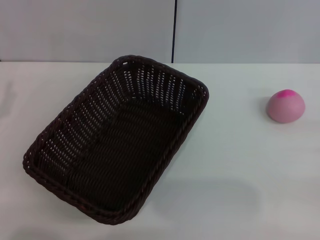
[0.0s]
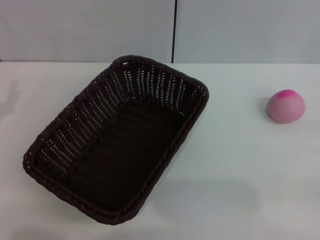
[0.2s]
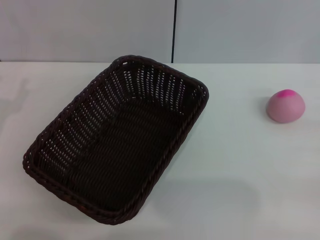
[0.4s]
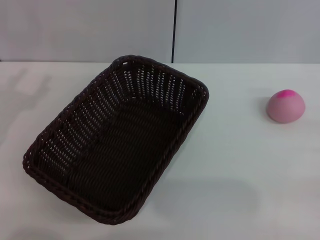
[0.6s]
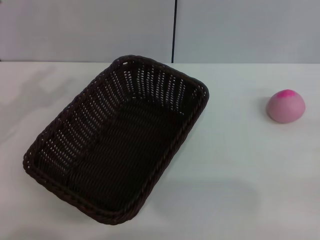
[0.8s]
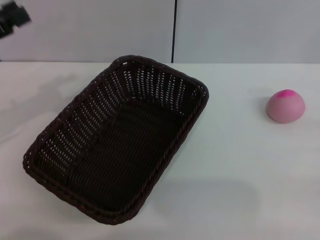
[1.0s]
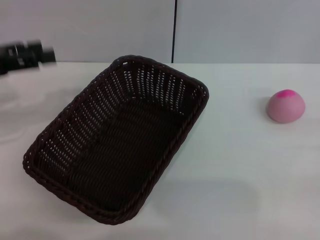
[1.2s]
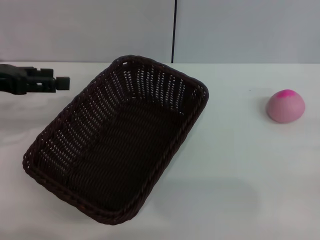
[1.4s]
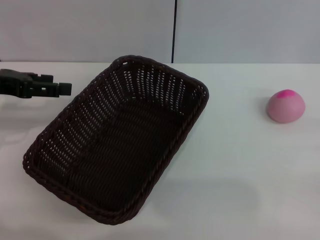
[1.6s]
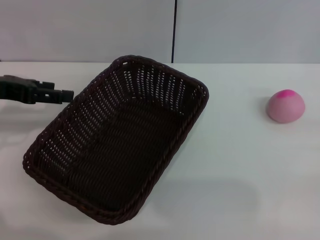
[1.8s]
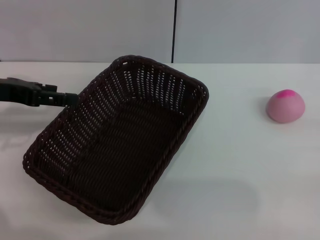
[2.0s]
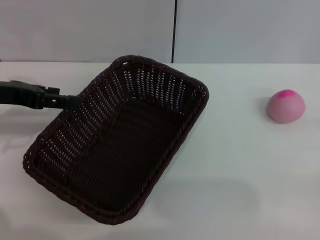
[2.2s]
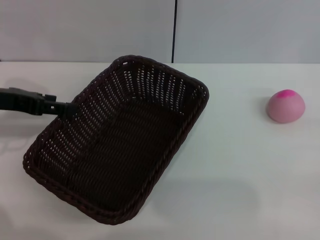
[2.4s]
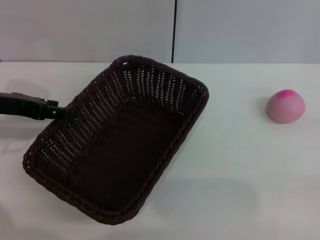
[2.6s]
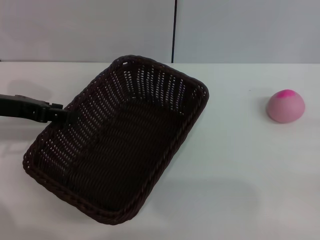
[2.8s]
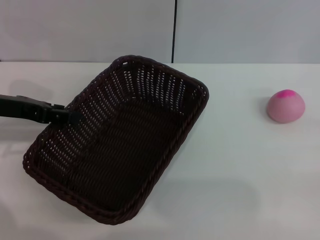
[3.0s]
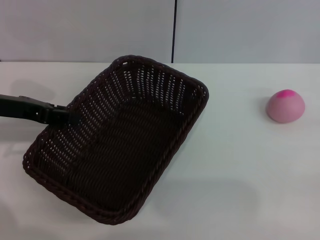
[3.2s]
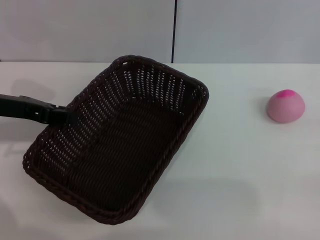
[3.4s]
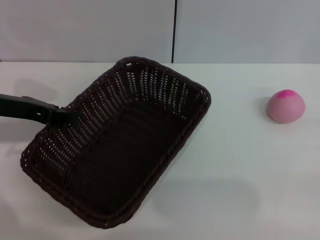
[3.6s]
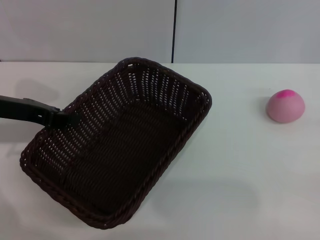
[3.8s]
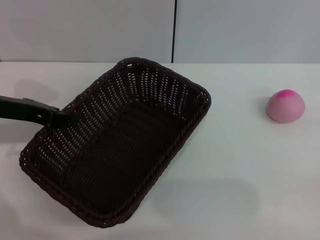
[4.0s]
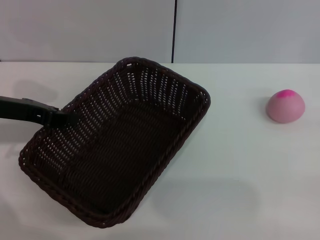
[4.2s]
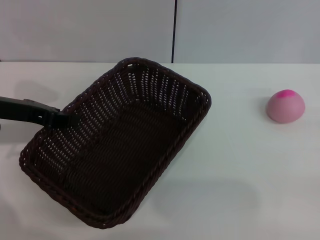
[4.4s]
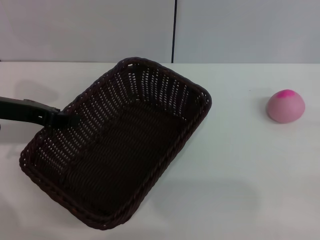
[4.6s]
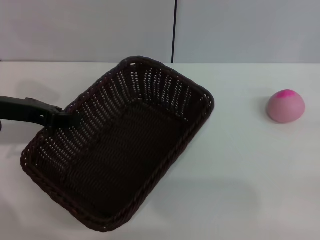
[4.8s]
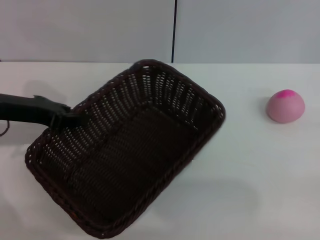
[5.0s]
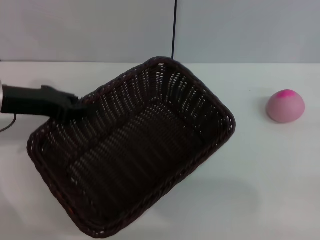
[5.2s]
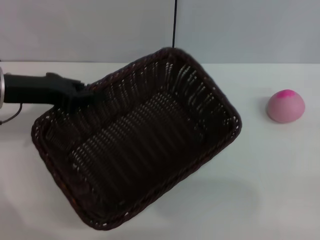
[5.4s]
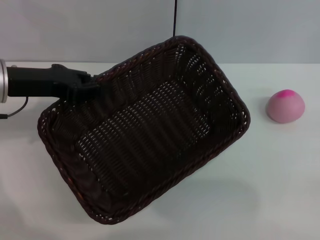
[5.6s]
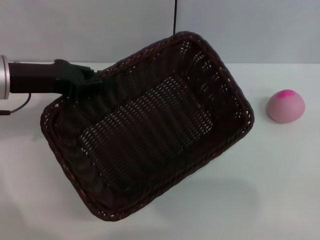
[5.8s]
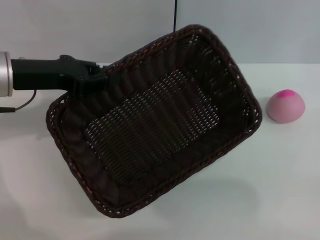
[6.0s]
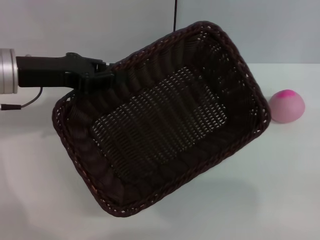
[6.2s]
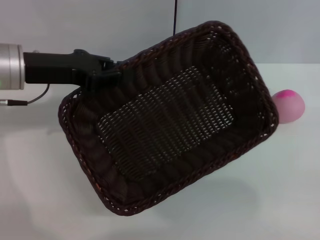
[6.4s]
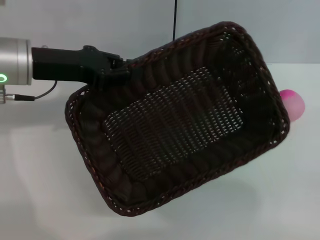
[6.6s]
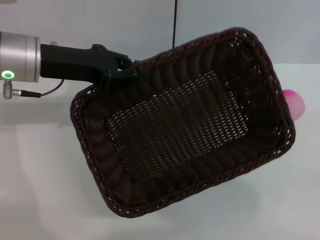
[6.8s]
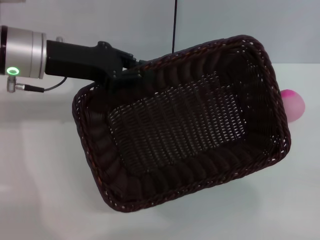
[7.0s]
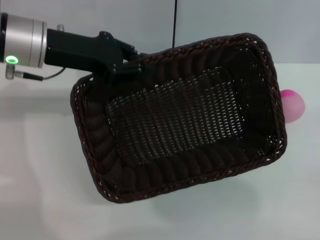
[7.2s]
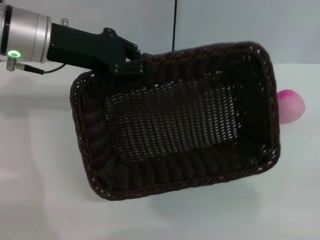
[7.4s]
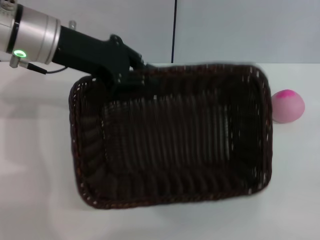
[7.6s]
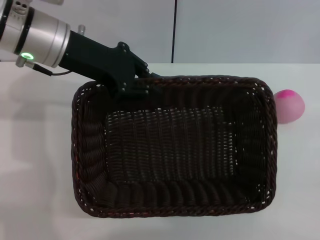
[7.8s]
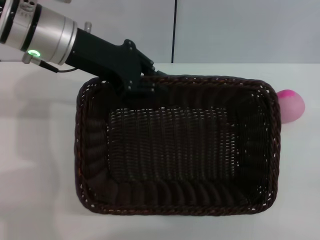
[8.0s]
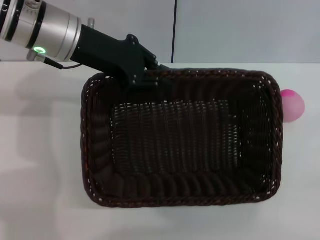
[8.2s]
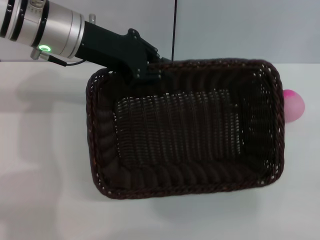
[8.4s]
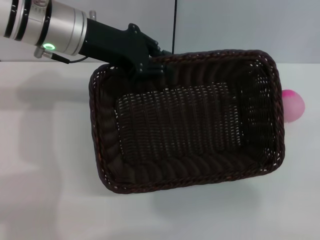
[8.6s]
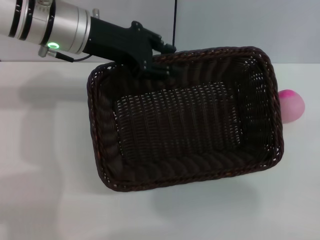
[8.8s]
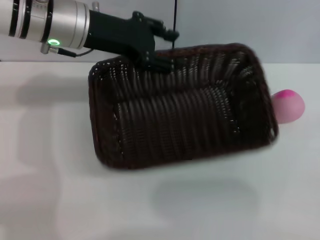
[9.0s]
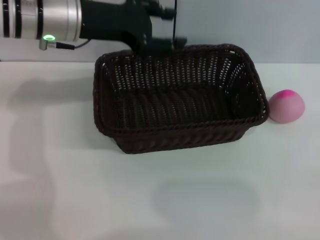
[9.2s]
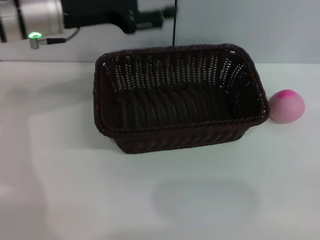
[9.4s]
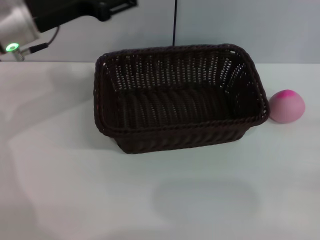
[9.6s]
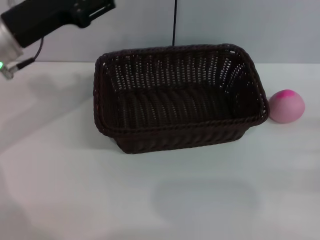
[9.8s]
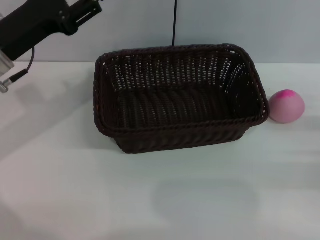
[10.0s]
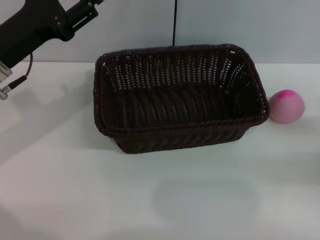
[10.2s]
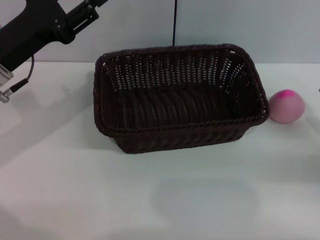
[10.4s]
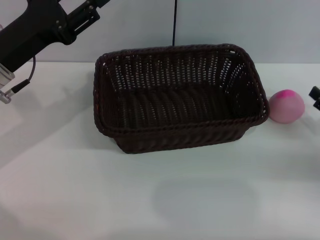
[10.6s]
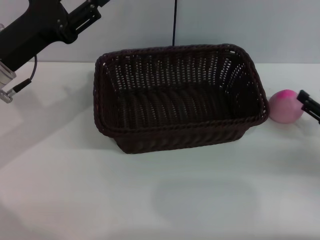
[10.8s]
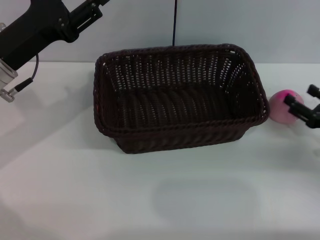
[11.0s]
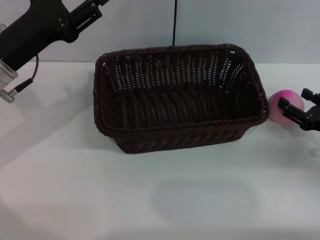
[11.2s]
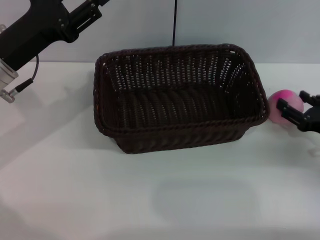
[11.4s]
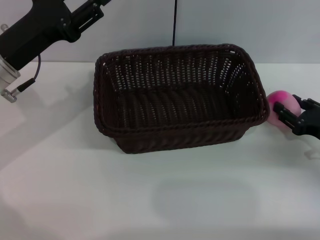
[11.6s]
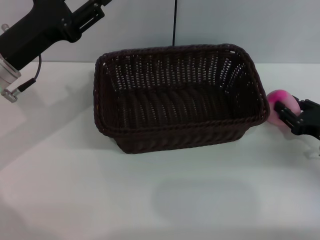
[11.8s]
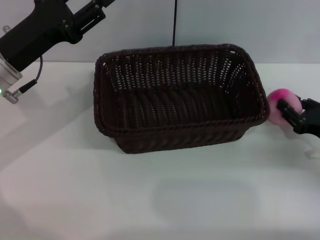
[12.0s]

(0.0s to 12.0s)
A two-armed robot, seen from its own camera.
Step, 0.0s - 5.4s: Pick up the dark basket with the left gripper.
Step, 5.6s - 9.4s: Place the dark basket in the center of view with the right gripper.
0.0s - 1.6s: The left gripper moves upward and forward, roughly 15 cm.
1.6s - 3.0s: There are only small adjustments of the grippers.
3.0s - 4.4s: The left gripper closes its fingers.
6.0s - 7.6s: The left gripper heads to the right, covering roughly 5 cm.
7.6s - 9.0s: The left gripper opens up.
9.0s - 10.4s: The left gripper shifts about 15 cm to the left, backward and downward.
10.4s - 12.0s: The right gripper shifts by about 5 cm, and opens and closes again.

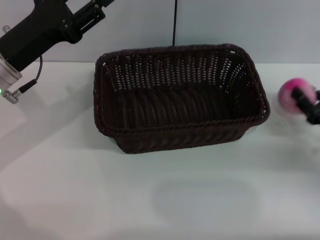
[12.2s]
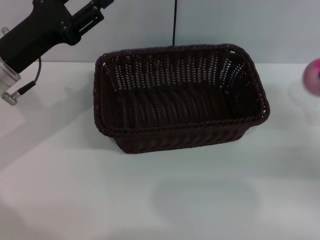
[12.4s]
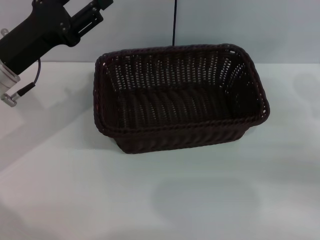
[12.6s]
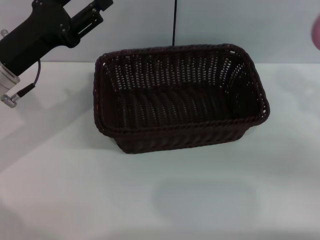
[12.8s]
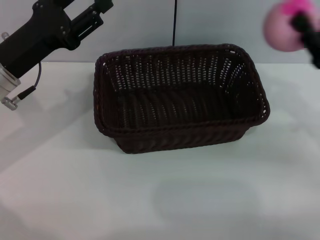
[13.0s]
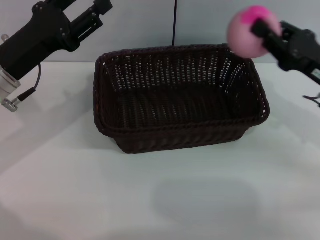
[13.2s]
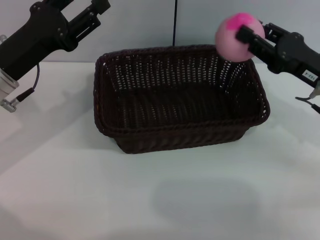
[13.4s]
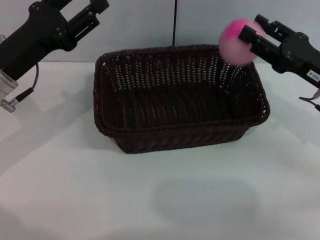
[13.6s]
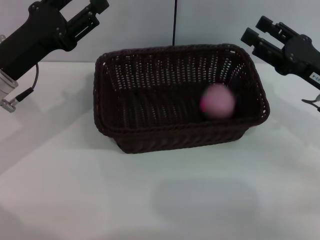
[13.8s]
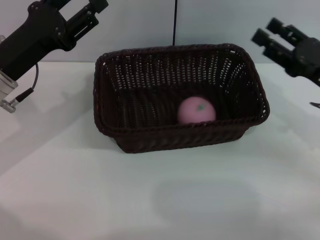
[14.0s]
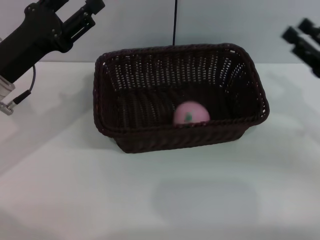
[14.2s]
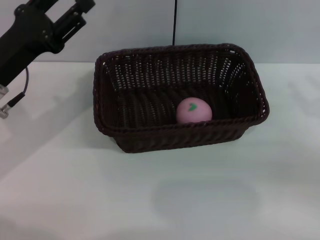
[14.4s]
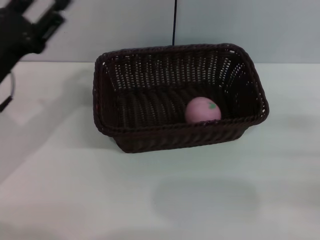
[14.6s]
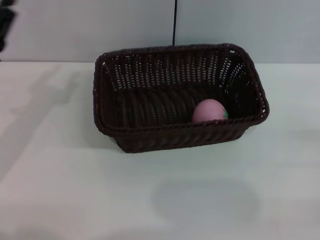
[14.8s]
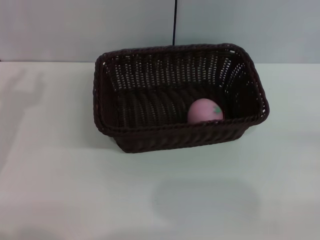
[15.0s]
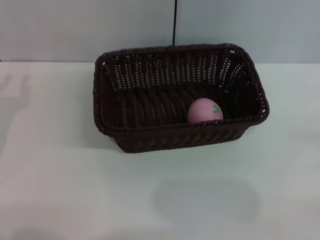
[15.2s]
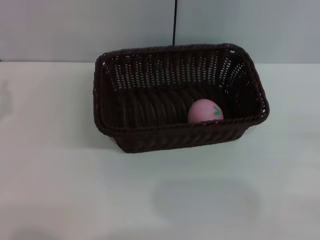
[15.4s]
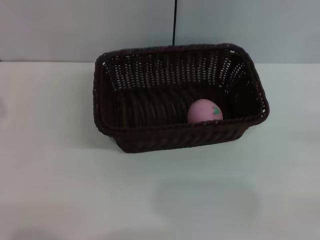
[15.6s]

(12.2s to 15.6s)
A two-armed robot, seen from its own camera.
12.2s - 13.8s: The right gripper is displaced upward and to the left by about 10 cm, and opens its fingers.
13.8s - 15.6s: The right gripper heads to the right, backward and downward, covering roughly 20 cm. Meanwhile the left gripper goes approximately 15 cm to the left, backward and downward, and closes.

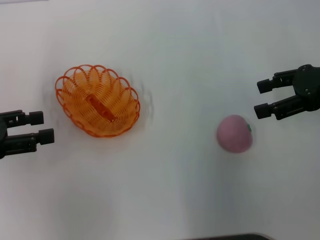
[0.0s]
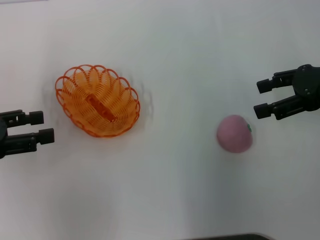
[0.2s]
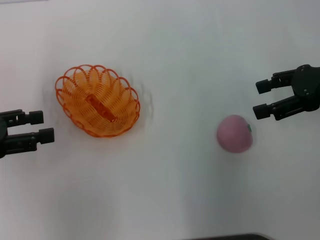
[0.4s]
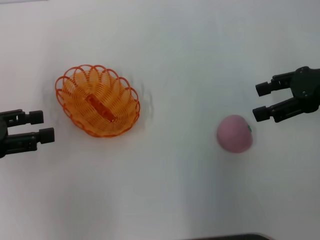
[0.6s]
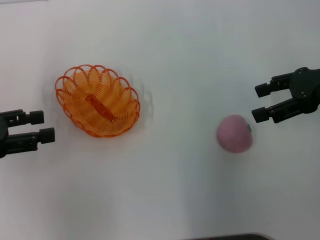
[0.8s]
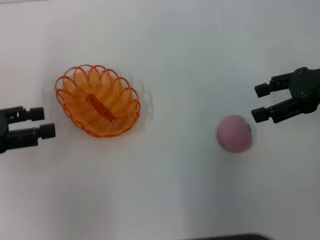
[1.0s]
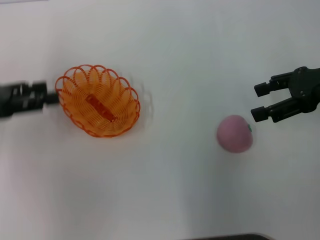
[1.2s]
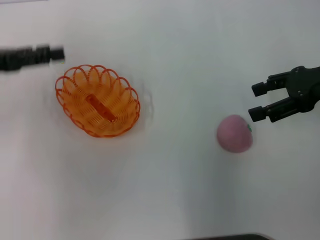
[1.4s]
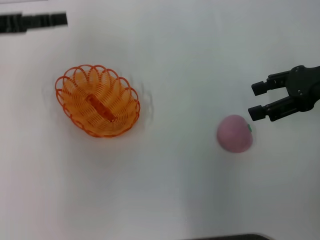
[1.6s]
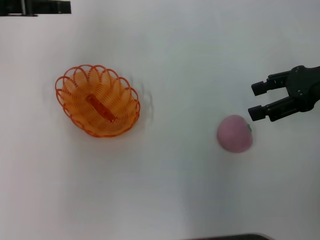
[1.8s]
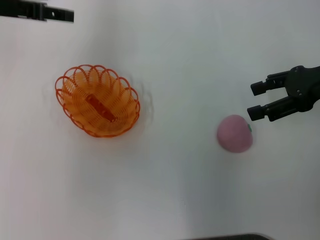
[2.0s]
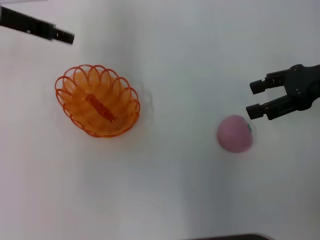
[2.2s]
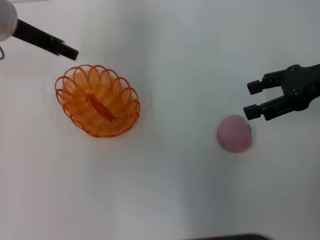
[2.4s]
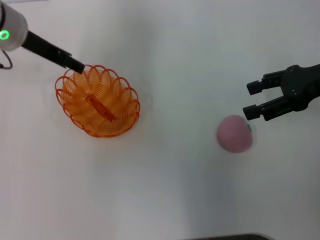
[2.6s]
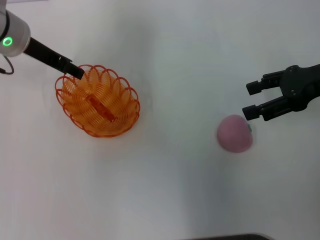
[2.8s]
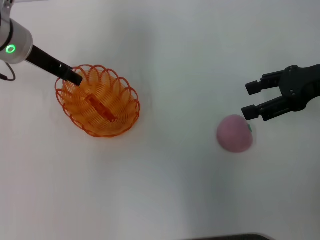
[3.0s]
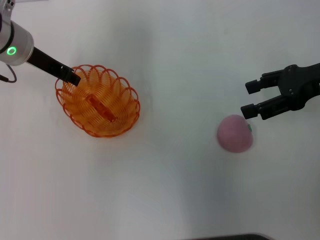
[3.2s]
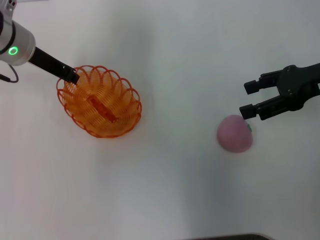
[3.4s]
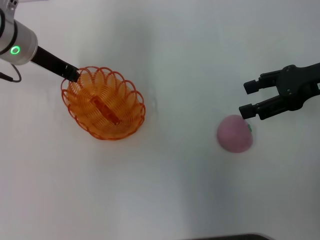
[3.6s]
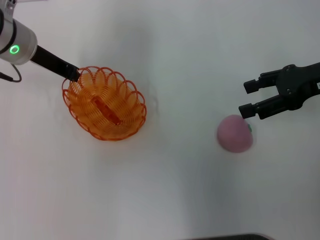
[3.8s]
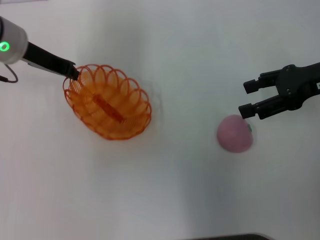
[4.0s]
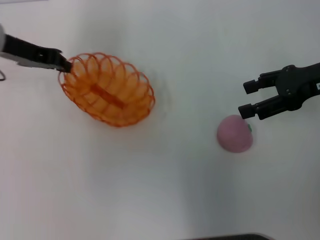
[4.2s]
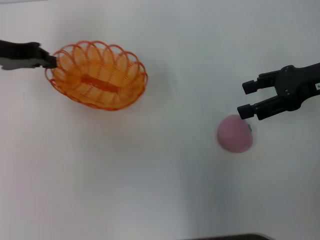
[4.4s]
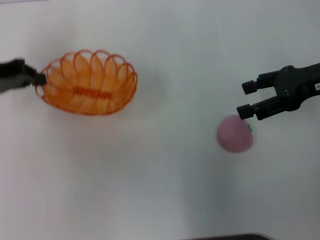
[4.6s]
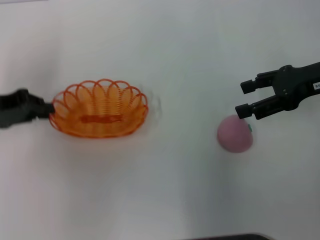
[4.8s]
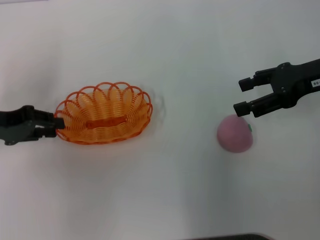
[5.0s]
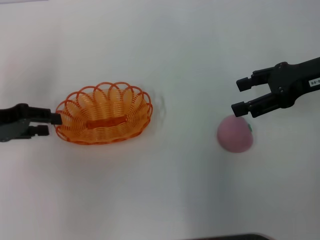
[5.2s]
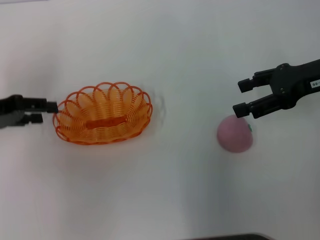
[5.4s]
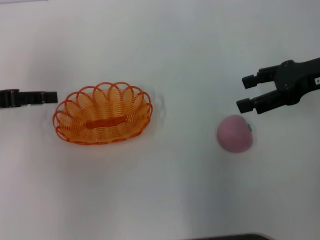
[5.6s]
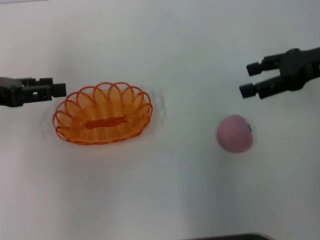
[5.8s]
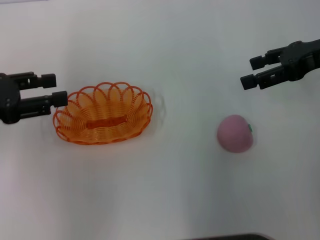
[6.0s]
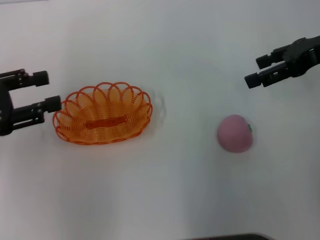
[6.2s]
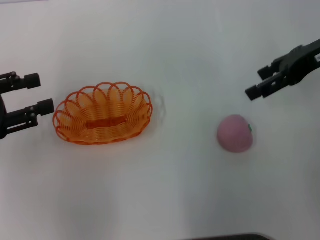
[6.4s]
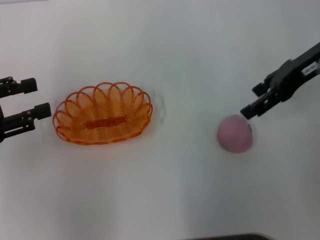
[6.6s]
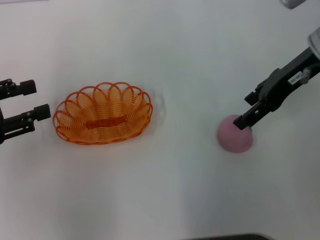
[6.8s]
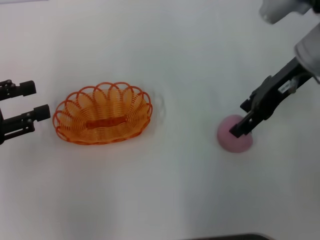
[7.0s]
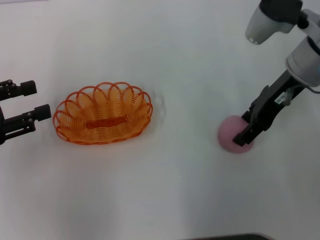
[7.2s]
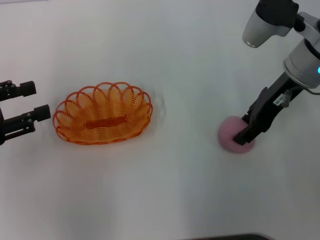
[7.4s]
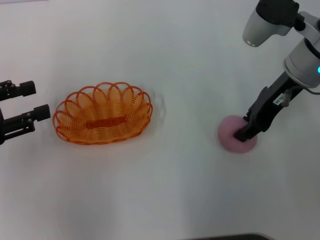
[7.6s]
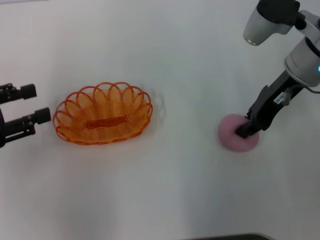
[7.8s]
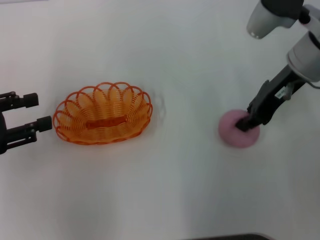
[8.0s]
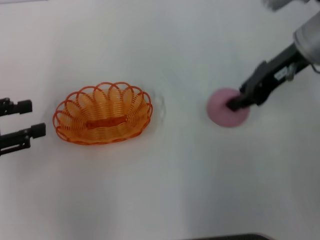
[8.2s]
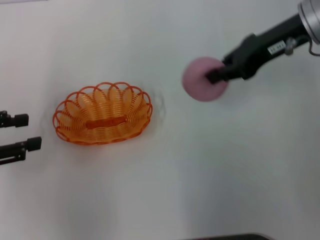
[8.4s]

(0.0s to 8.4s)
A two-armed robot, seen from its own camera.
Step, 0.0s - 4.4s: Pick up the basket with the left gripper.
Step, 4.8s - 5.8s: Place the basket in the center of view with the left gripper.
Step, 6.2s - 8.4s: Pick up the peach with the right gripper.
0.0s - 1.4s: The left gripper moves forward, about 5 cm.
1.4s - 2.8s: The left gripper moves to the right and forward, some 15 cm.
2.8s - 4.2s: The left gripper closes up.
4.2s - 5.6s: The left gripper heads backward and to the left, covering about 10 cm, and opens up.
5.6s - 7.0s: The right gripper travels to the left by about 10 cm; the left gripper moves backward, roughly 5 cm.
7.0s - 8.4s: The right gripper closes up.
